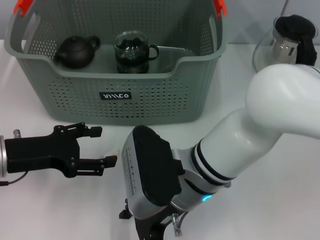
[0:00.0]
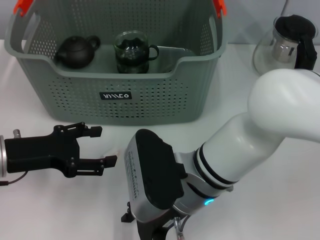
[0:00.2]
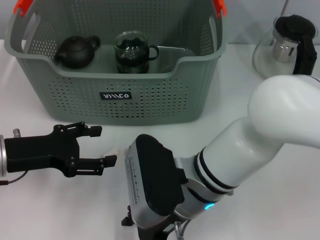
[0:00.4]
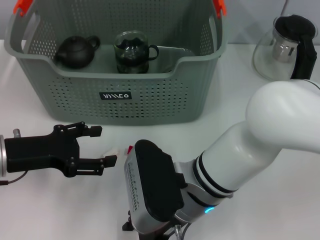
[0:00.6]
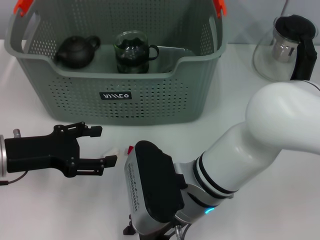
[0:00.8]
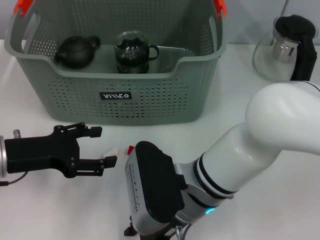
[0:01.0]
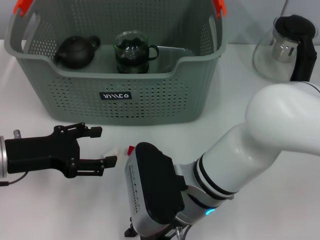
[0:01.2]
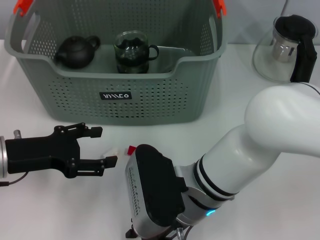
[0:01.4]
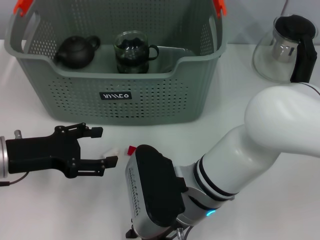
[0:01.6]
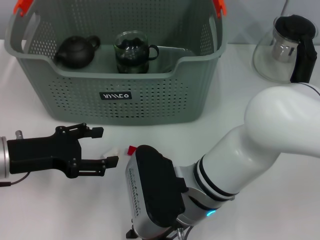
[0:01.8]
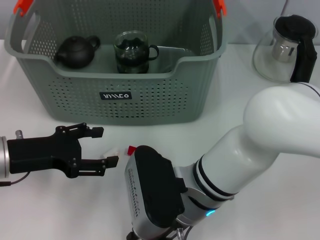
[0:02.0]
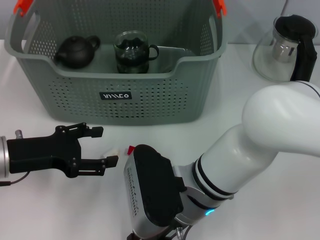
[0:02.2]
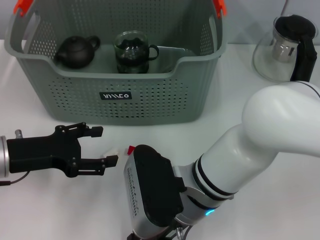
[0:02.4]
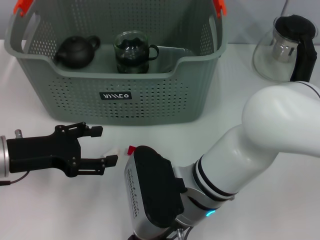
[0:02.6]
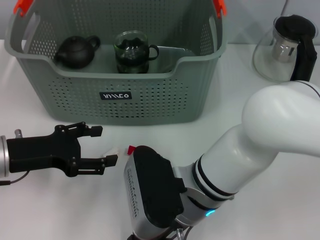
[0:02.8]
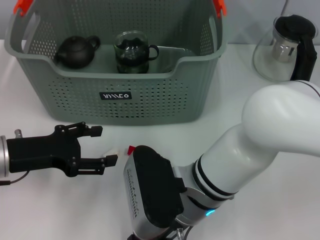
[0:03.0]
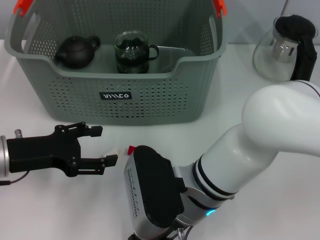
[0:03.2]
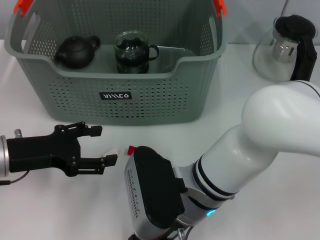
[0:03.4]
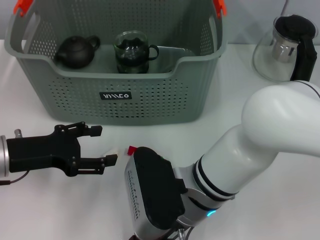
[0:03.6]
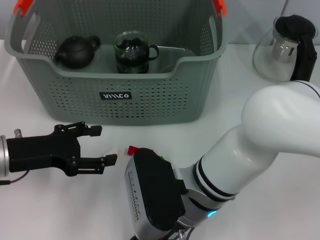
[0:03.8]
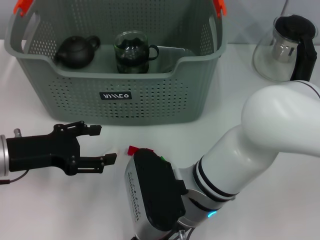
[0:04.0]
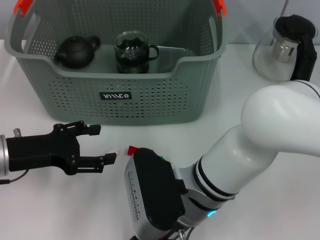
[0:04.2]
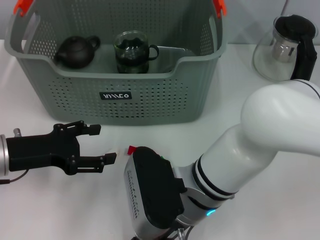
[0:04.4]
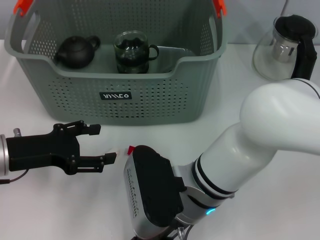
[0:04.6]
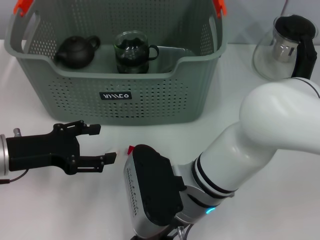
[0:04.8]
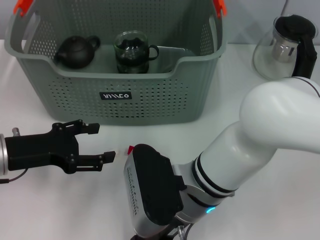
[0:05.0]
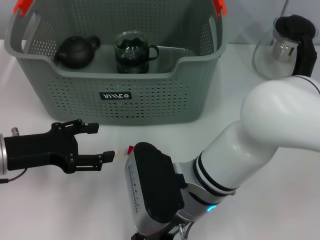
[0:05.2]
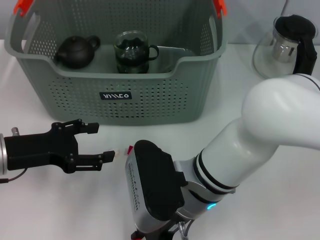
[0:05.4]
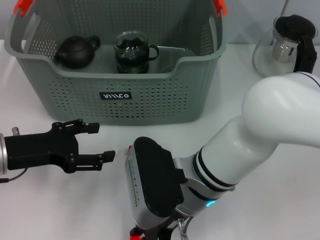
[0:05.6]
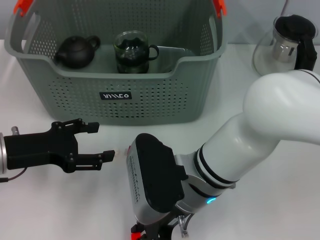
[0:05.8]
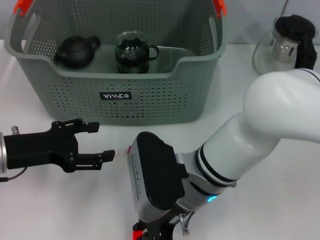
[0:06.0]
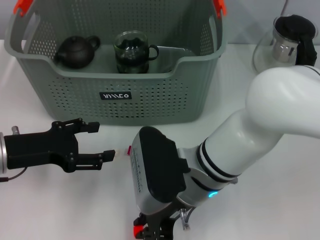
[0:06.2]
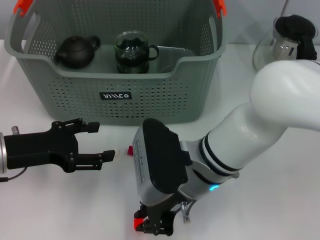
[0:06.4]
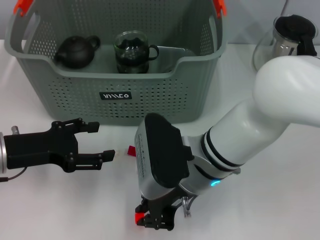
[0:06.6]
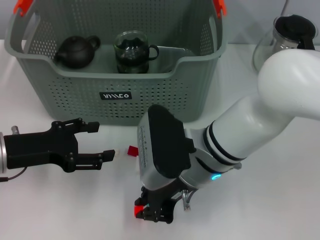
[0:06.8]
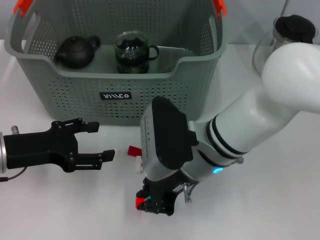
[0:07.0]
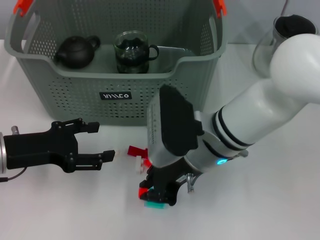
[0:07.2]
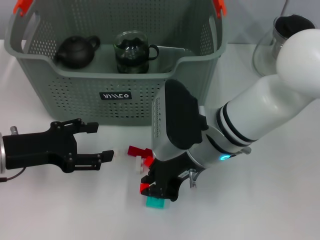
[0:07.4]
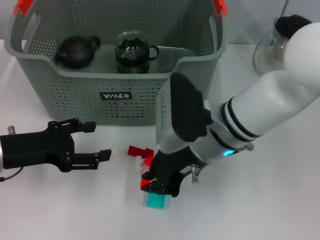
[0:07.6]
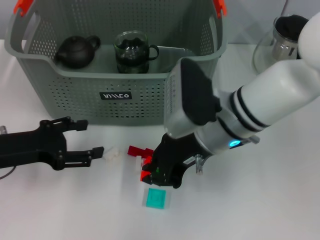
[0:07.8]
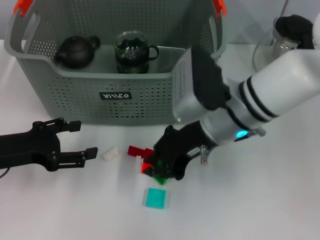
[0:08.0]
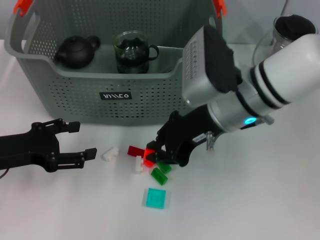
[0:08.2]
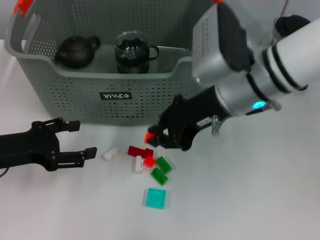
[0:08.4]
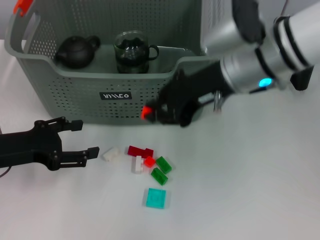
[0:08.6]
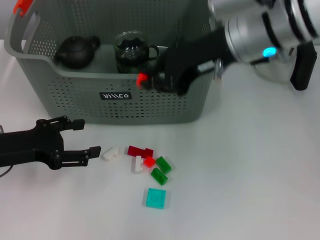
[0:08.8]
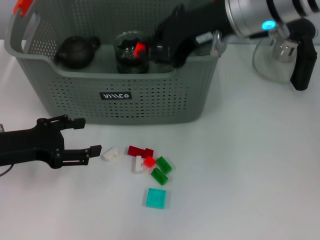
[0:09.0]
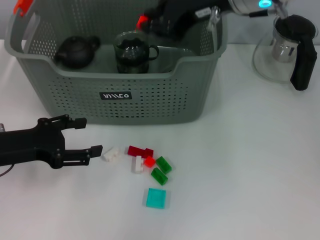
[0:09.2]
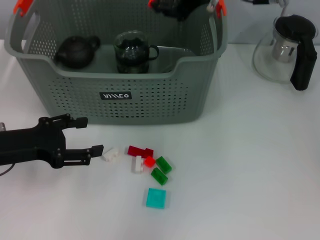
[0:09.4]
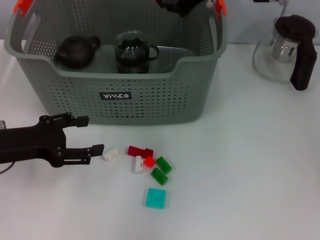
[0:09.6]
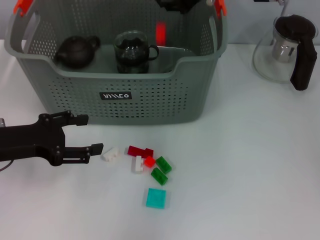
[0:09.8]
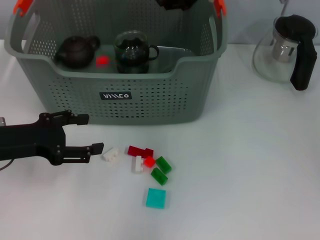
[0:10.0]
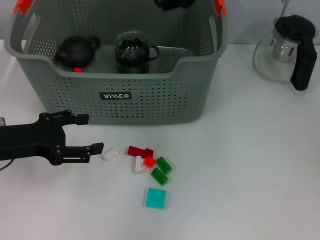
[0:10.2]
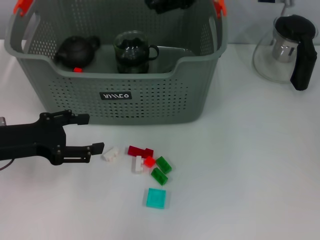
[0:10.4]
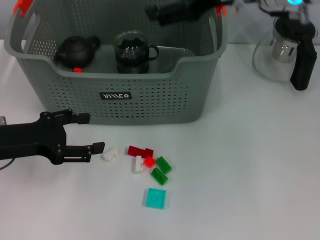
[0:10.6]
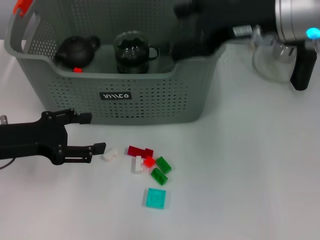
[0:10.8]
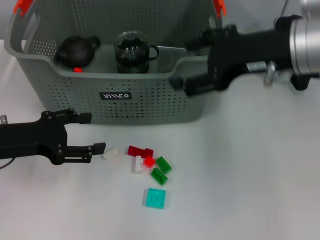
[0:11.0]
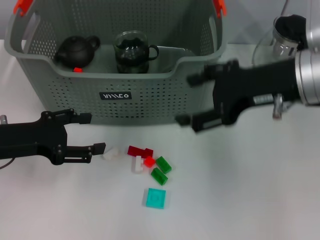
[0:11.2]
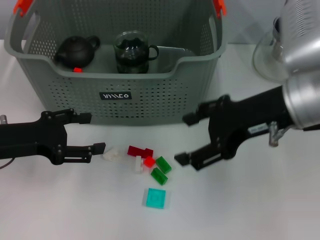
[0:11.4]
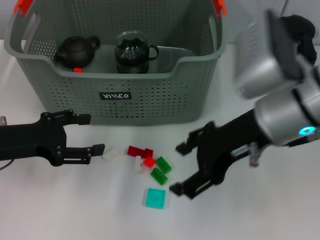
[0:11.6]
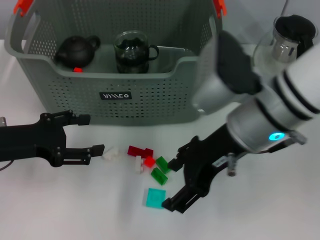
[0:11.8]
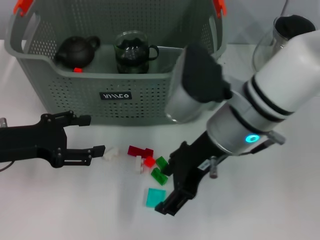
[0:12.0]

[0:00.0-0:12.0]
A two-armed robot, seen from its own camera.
Task of the whole recording: pick up the teacup on the table and place it into the storage bin, pick up the block on the table and place it into the storage bin.
Step, 0:00.0 to 0:05.2: Grasp the orange block with right gripper.
Step, 0:05.4 to 0:09.8: Place the orange block in the storage box with right gripper.
0:00.0 to 0:01.6: The right gripper closes its fingers.
0:01.6 to 0:04.4: Both grippers stay put.
0:04.4 to 0:06.0: The grippers move only a little.
0:06.0 to 0:07.6: The right gripper shifts by approximately 5 cm.
0:07.6 to 0:09.0: The right gripper is displaced upward and forward by about 15 cm.
0:09.0 to 0:10.4: The right gripper opens.
0:10.4 to 0:12.0: The right gripper heads backward and downward, covering approximately 15 cm.

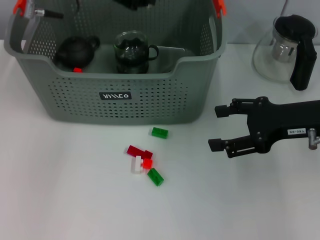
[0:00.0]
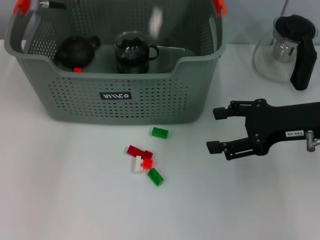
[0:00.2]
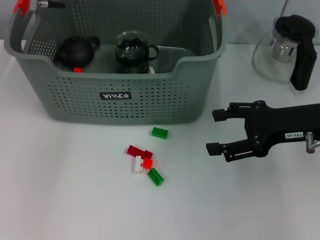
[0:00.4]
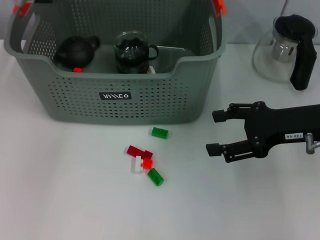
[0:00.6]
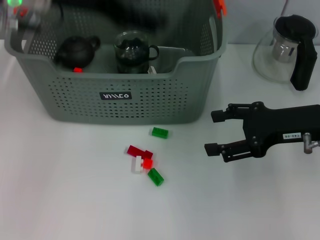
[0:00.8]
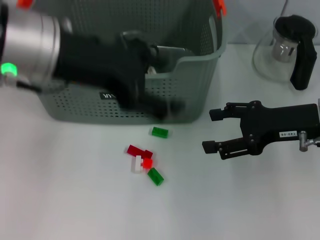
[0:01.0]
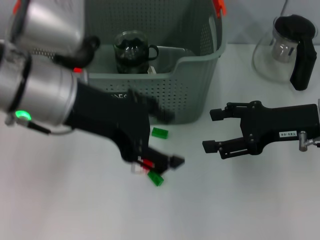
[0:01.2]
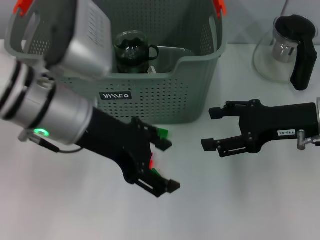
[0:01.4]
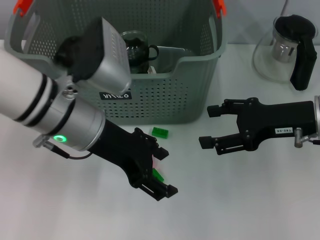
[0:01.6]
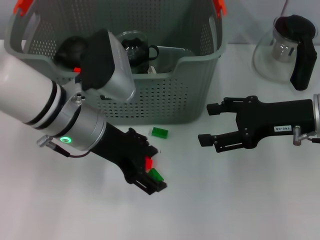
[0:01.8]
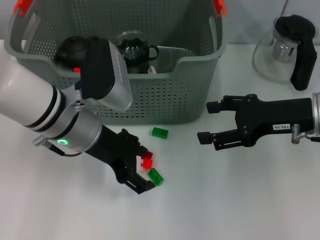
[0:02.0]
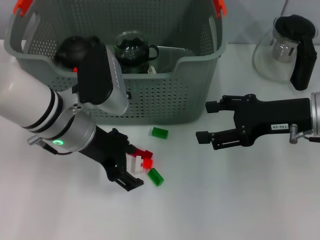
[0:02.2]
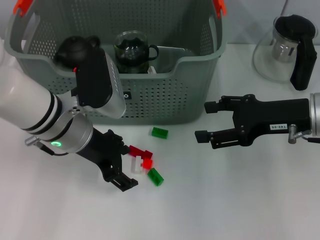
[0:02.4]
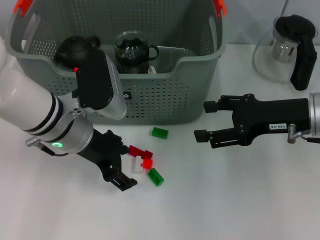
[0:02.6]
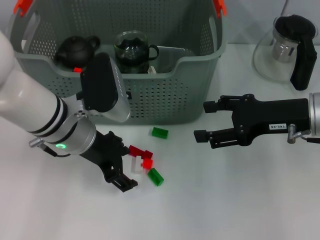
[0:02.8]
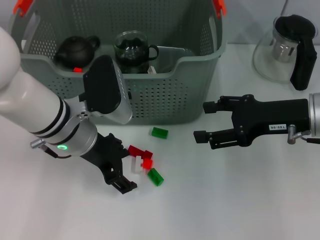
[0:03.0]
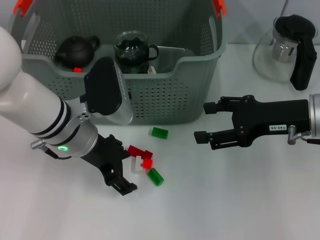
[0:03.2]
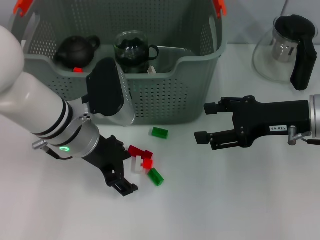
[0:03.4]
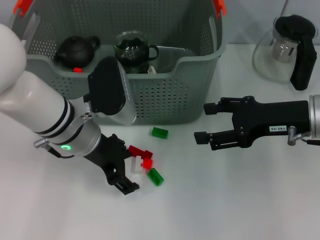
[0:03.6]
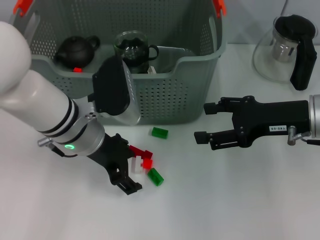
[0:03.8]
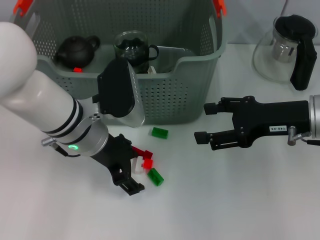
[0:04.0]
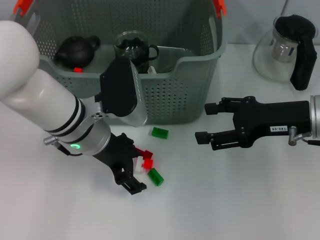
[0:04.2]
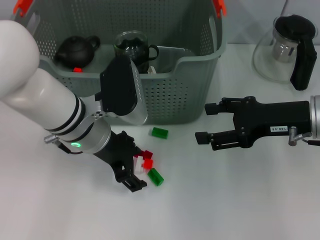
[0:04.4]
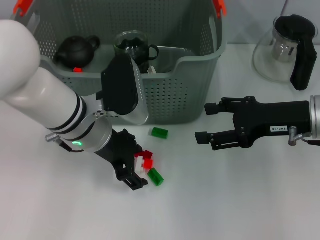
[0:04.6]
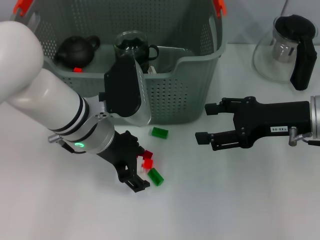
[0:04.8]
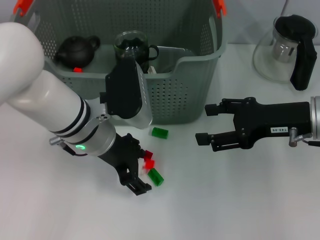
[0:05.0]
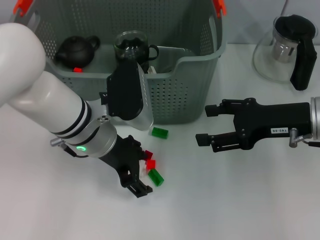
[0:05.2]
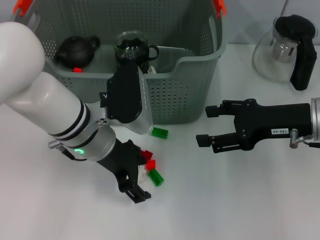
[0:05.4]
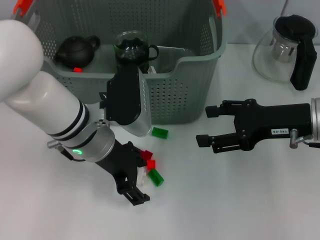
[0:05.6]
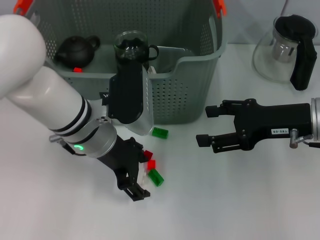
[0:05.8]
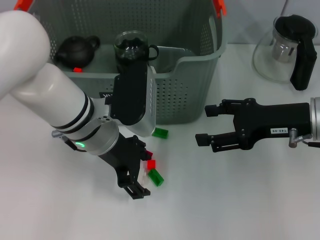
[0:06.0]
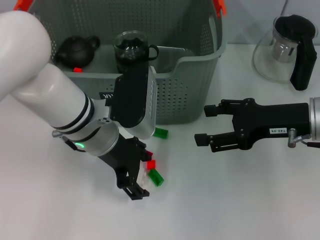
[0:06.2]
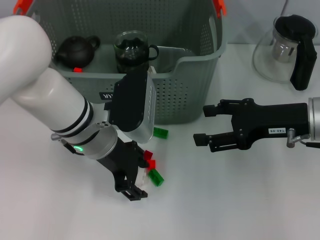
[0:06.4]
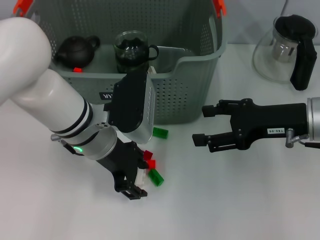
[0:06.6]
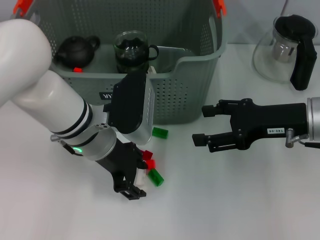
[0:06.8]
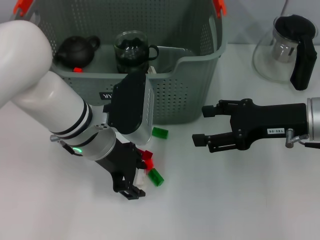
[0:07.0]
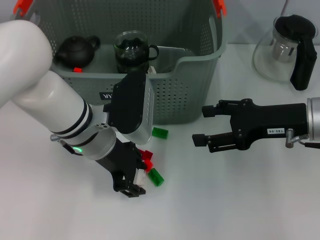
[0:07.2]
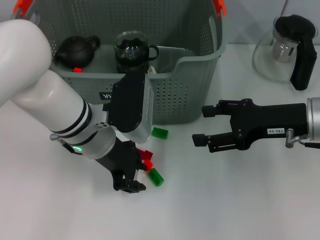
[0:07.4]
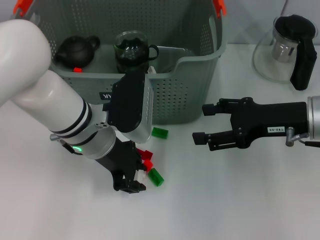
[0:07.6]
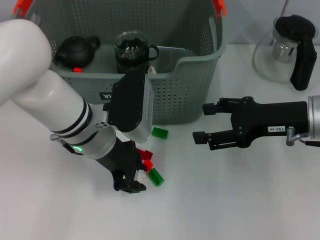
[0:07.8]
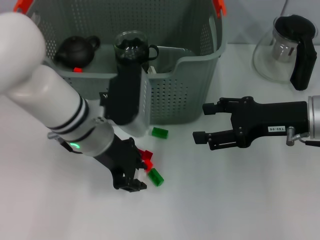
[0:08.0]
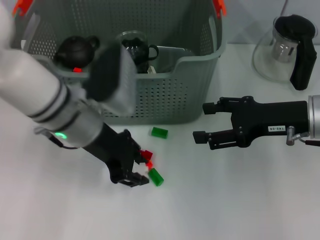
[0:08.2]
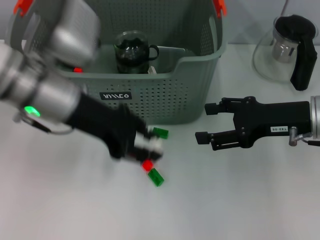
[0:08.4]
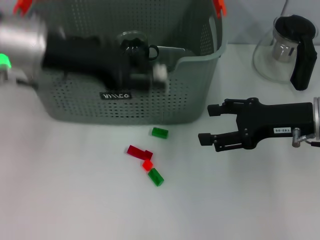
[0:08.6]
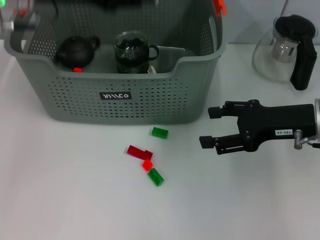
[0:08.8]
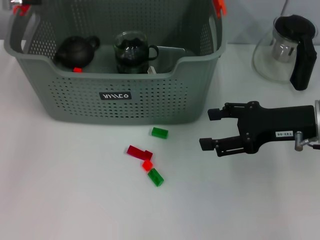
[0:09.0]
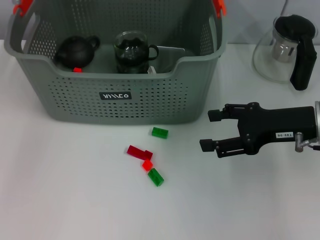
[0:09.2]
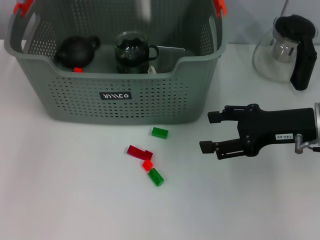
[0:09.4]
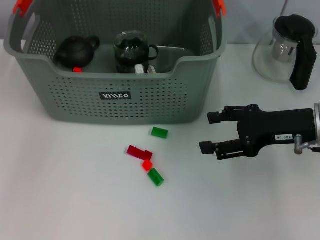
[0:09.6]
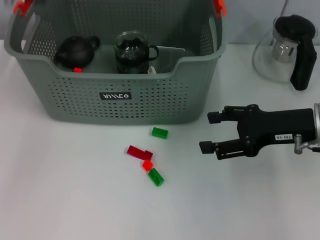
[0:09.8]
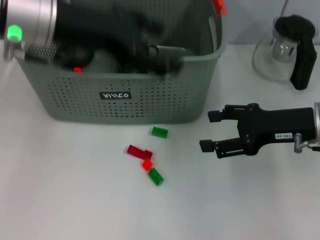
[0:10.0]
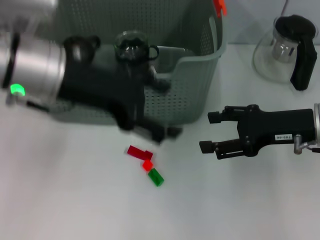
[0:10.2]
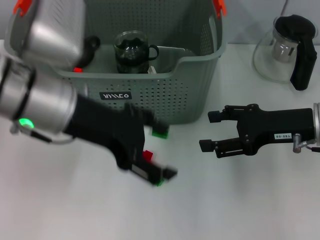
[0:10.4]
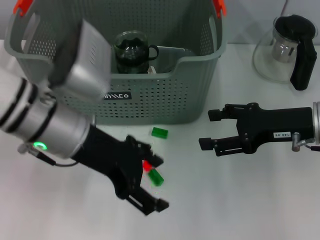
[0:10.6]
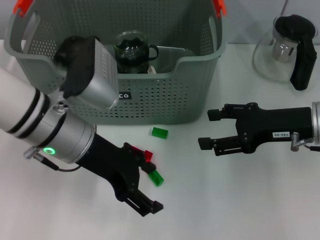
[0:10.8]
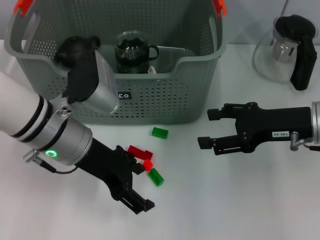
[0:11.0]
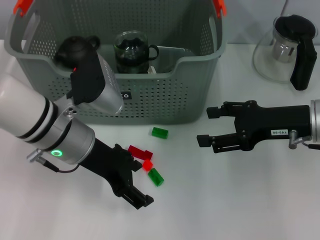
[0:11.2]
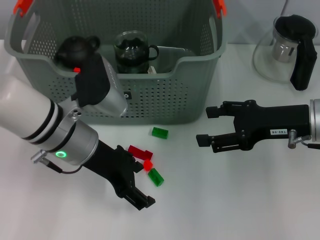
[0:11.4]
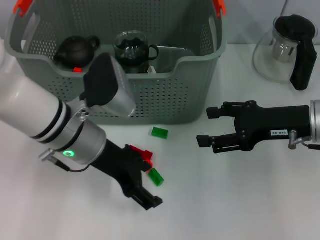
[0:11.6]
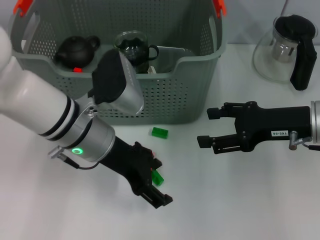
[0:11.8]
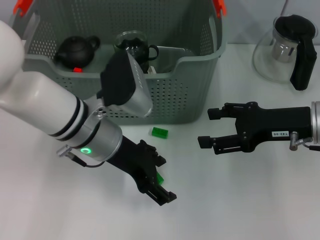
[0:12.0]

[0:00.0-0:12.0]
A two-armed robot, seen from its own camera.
Task of the whole recording: pick up the teacup on the table and place it into the storage bin, pick up the block on the table and place it into the storage bin.
Step, 0:00.4 to 0:07.8: Grasp the white block with left gripper.
Step, 0:08.0 to 0:09.6: Place the white block in the storage box with left gripper.
0:00.0 to 0:01.6: The left gripper travels backward and downward by about 15 cm, and opens its fingers.
0:01.6 to 0:03.0: The left gripper is displaced downward by approximately 5 cm.
0:03.0 to 0:06.0: The grippers make only small movements.
0:06.0 to 0:07.6: Both grippers stay about where they are.
0:07.6 to 0:09.0: The left gripper travels upward, to the left and forward by about 20 cm.
0:09.0 to 0:10.4: The left gripper travels backward and downward by about 15 cm, and opens.
0:10.4 to 0:12.0: The left gripper travels downward by approximately 10 cm.
